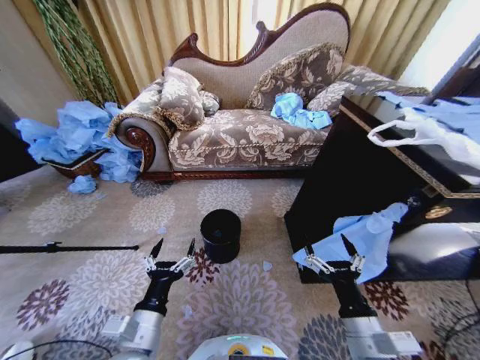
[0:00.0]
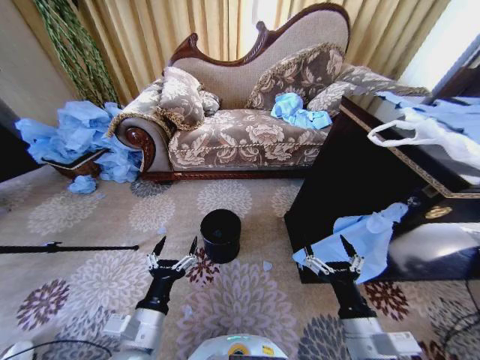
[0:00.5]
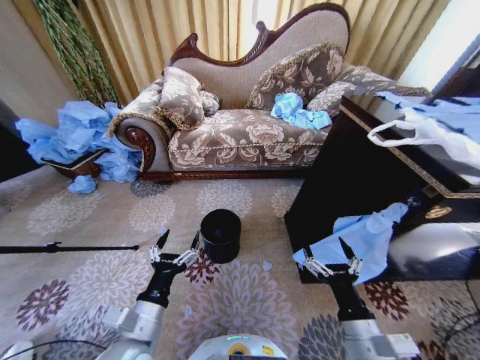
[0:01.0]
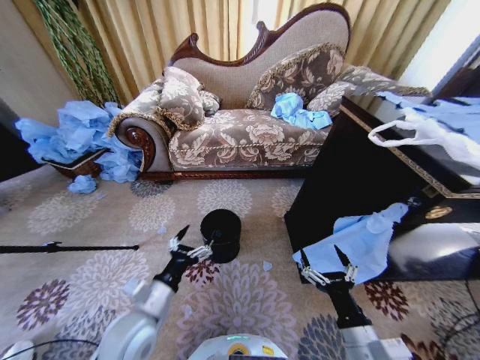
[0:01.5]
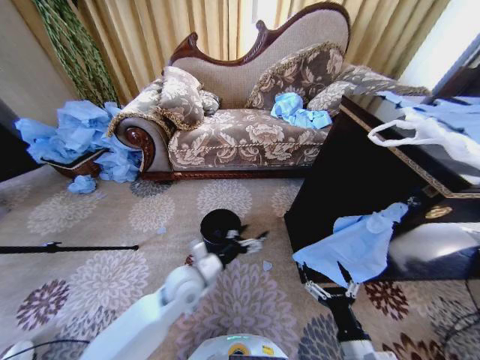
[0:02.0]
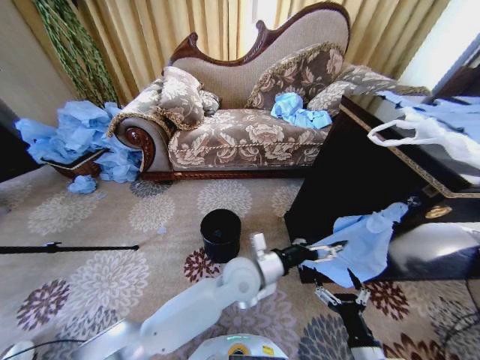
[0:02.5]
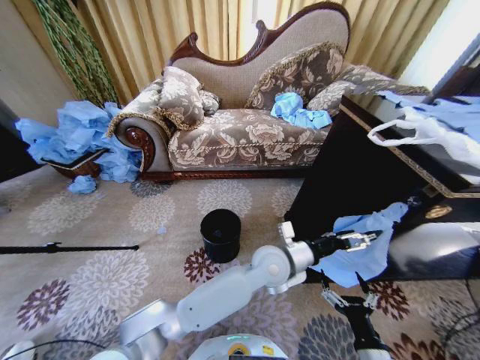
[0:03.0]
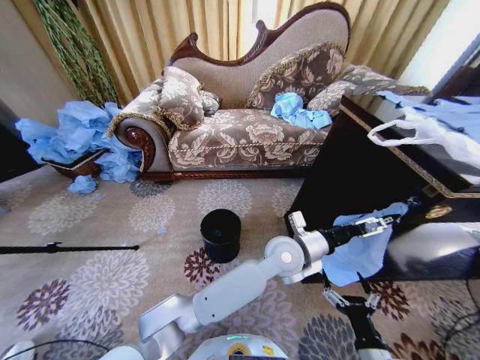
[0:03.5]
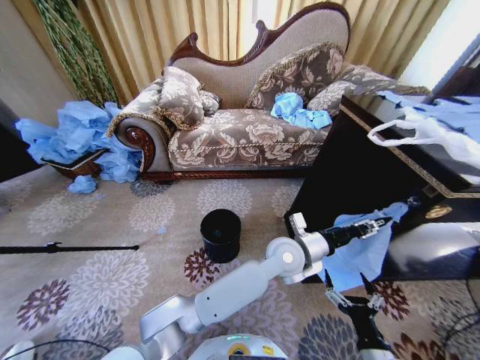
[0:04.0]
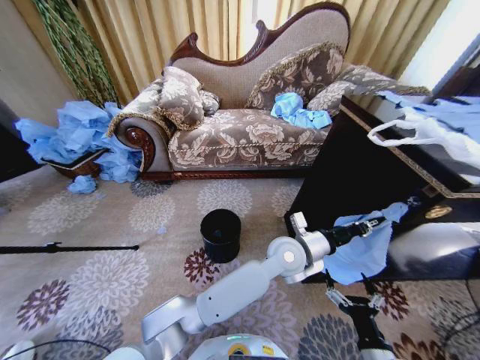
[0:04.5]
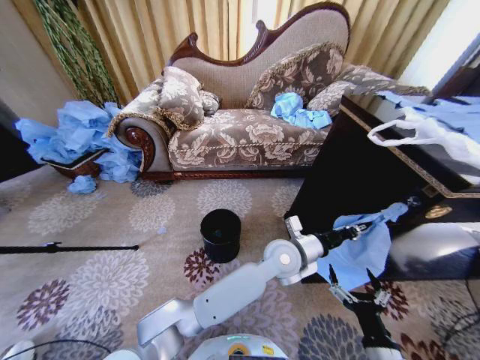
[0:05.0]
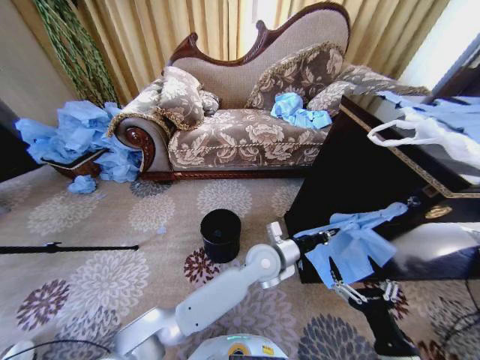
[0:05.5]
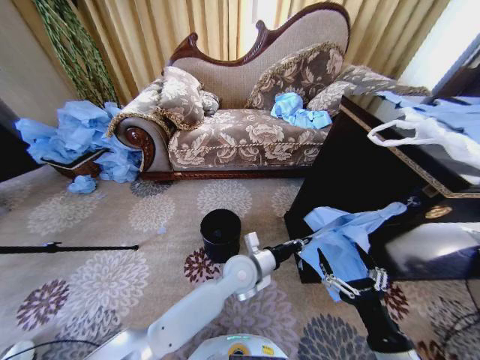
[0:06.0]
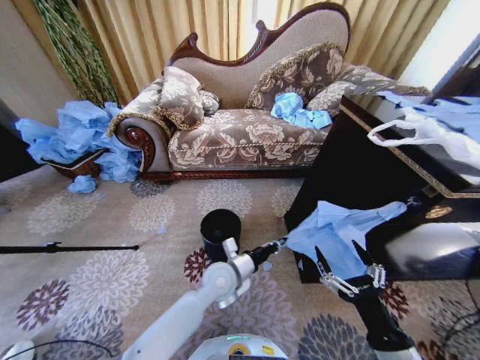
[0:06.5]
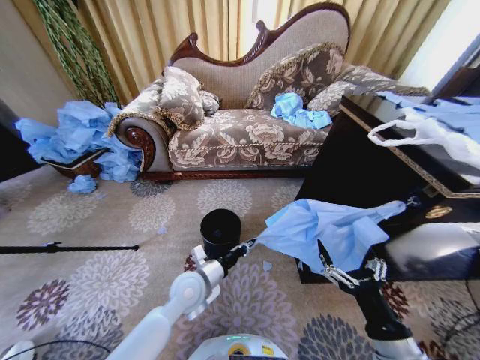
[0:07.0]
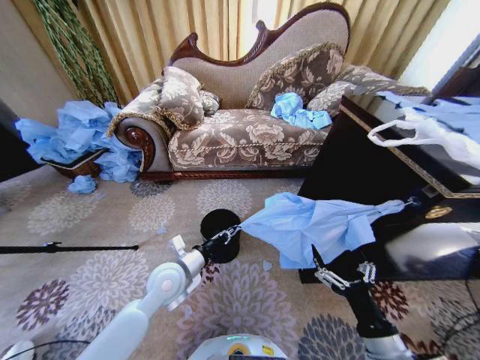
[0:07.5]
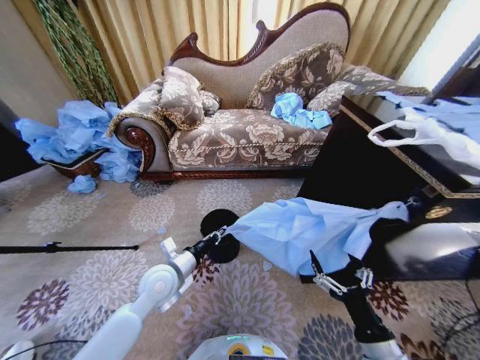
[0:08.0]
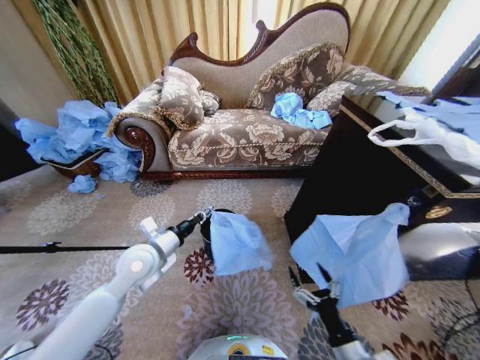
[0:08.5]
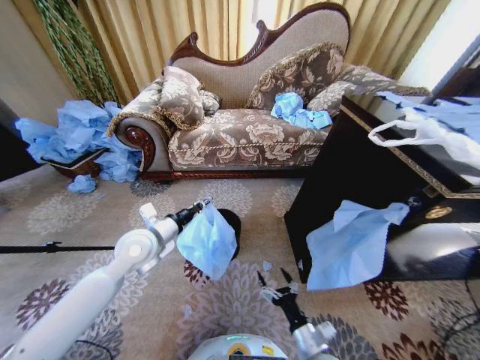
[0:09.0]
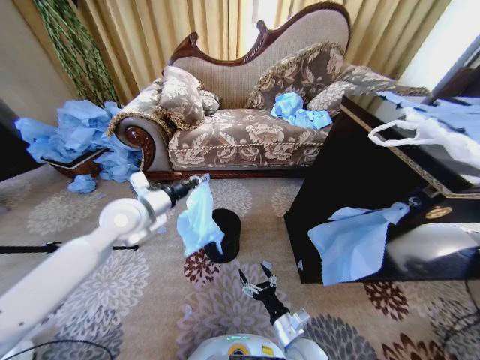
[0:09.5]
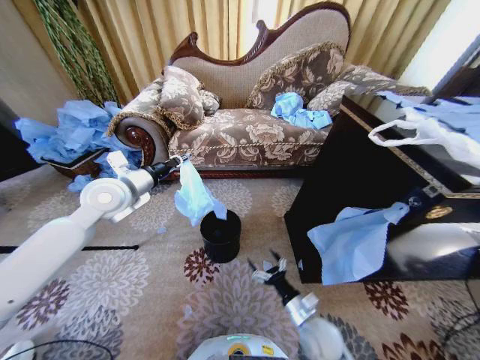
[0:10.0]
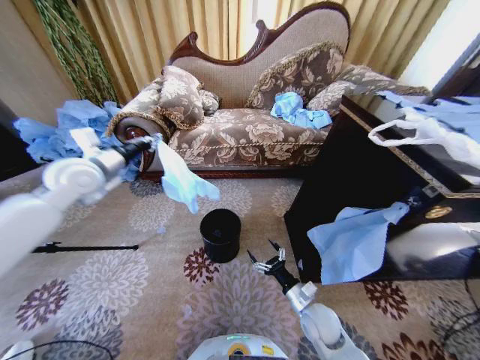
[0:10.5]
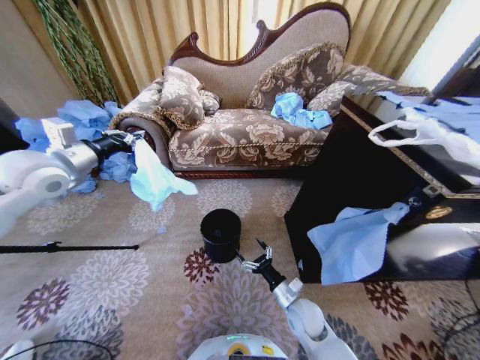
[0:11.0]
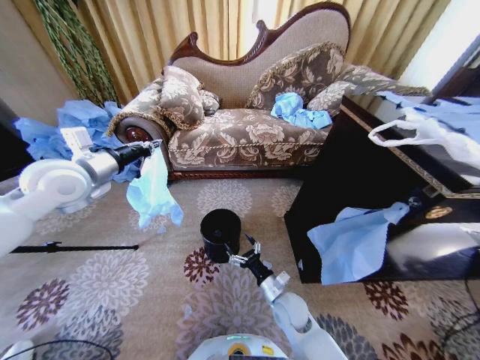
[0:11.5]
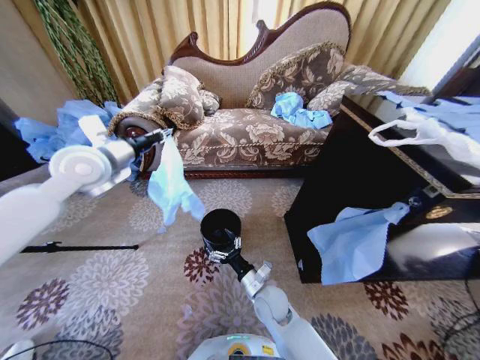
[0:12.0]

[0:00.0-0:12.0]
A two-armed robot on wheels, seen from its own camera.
Task of the whole recording: Place a garbage bag over the trash bin.
0:02.0 to 0:04.0: The left gripper goes some 25 cm to the right, and closes.
0:04.0 to 0:06.0: The right gripper heads upward, covering approximately 10 cm, while the left gripper moves to the left and downward, about 15 cm, and closes up.
0:06.0 to 0:08.0: The left gripper is displaced to the left by roughly 20 cm.
0:08.0 to 0:10.0: The right gripper moves downward, forward and to the left, approximately 20 cm; the left gripper is displaced upward, forward and to the left by approximately 25 cm.
0:10.0 to 0:12.0: The right gripper goes about 15 cm to the left and forward, while the left gripper moves upward, about 10 cm, and goes to the left and returns, some 10 cm each way.

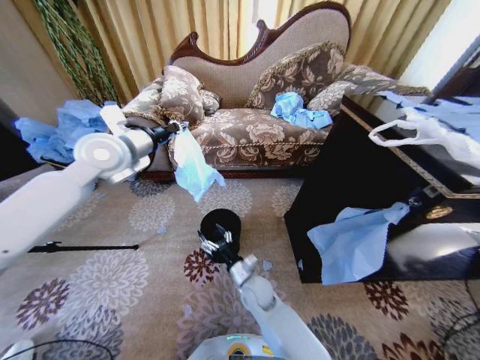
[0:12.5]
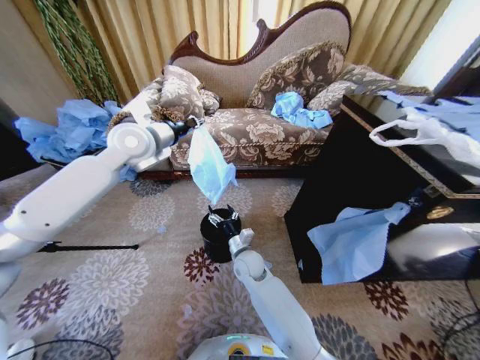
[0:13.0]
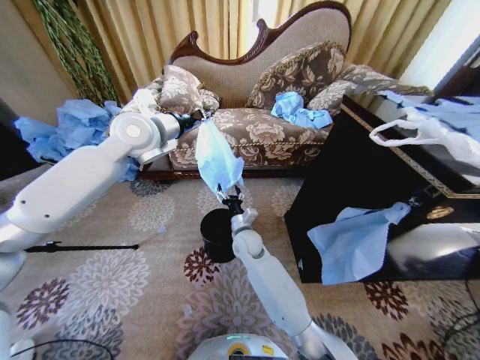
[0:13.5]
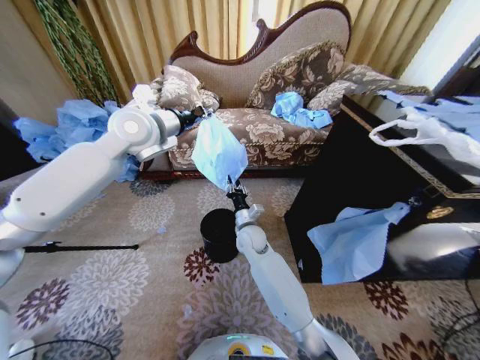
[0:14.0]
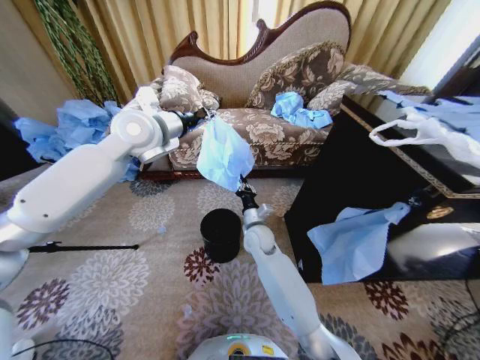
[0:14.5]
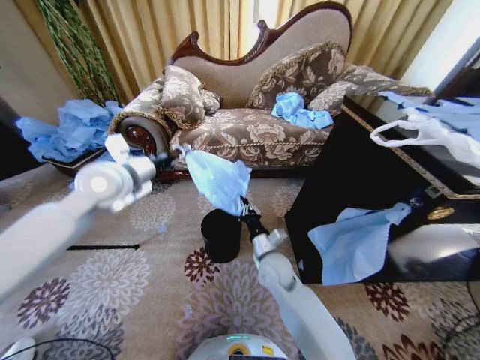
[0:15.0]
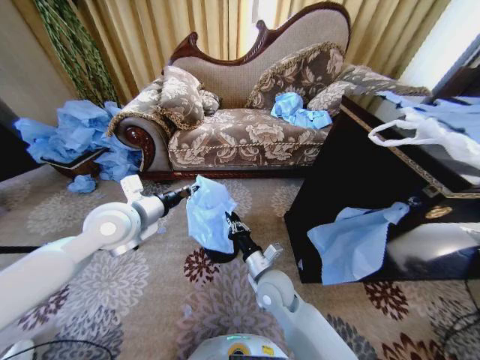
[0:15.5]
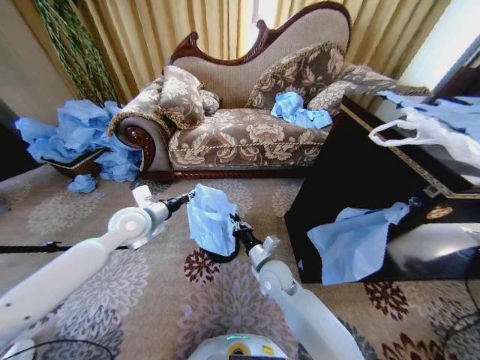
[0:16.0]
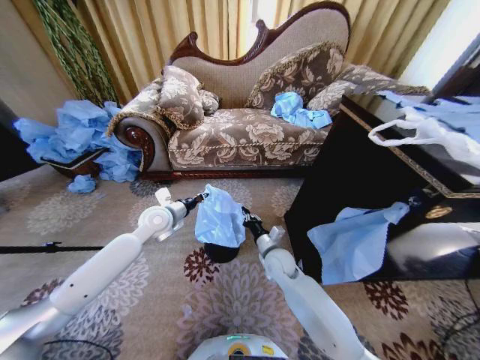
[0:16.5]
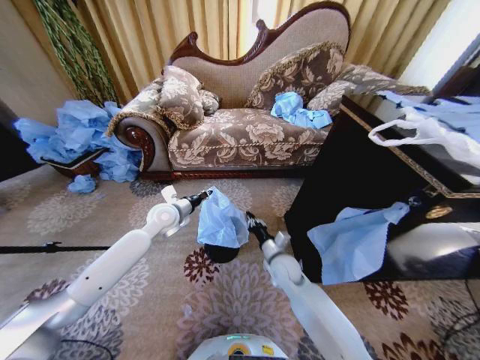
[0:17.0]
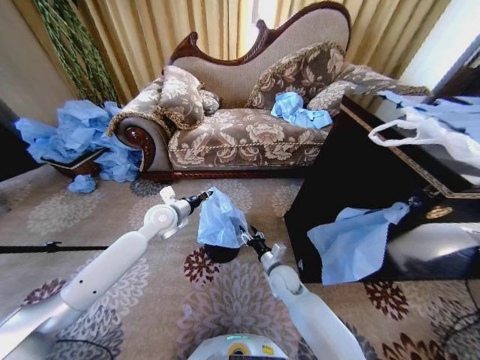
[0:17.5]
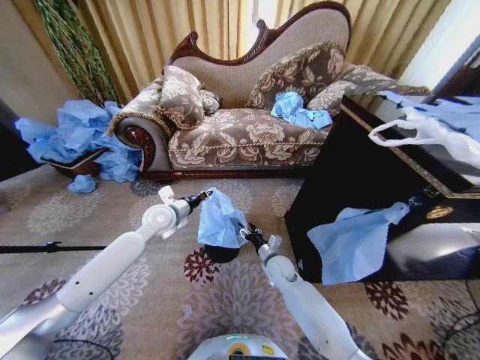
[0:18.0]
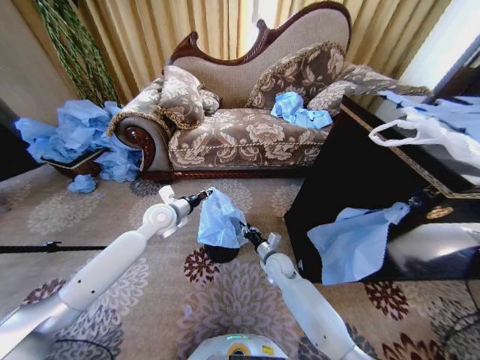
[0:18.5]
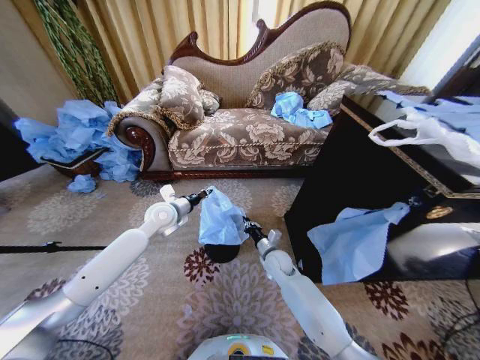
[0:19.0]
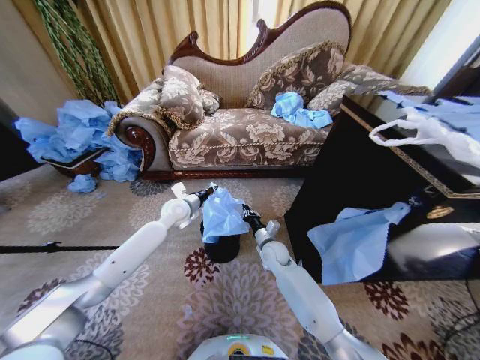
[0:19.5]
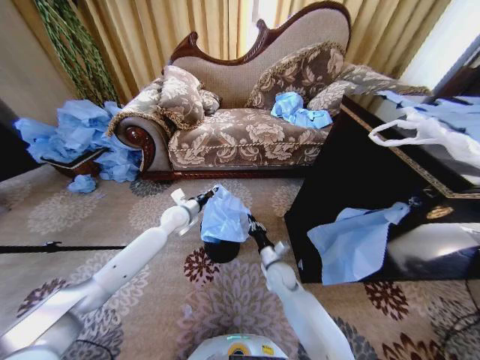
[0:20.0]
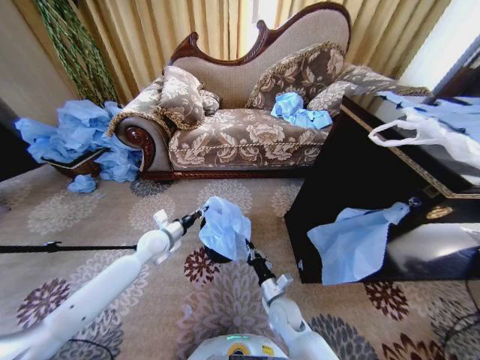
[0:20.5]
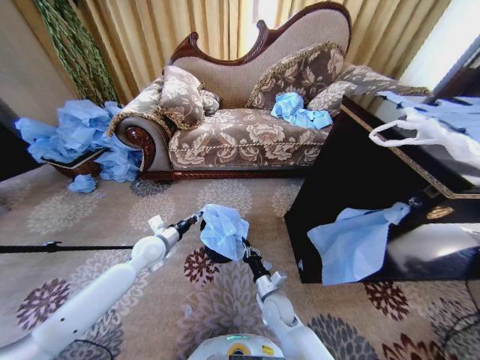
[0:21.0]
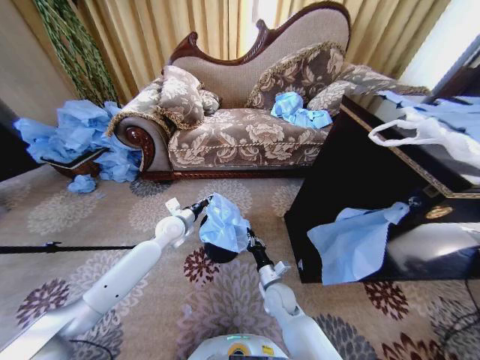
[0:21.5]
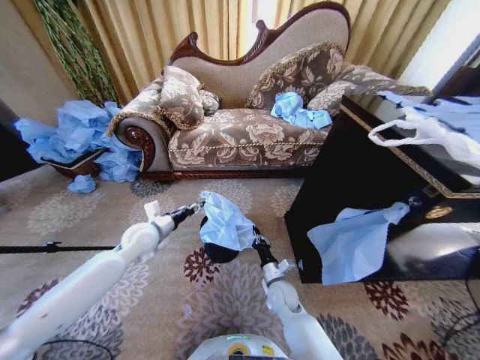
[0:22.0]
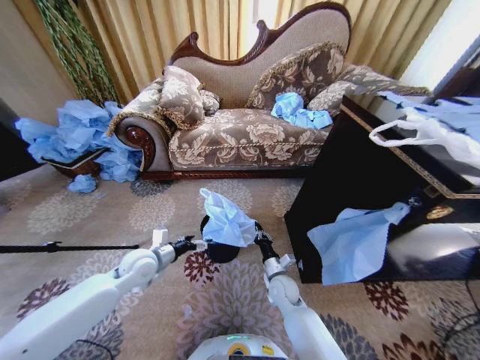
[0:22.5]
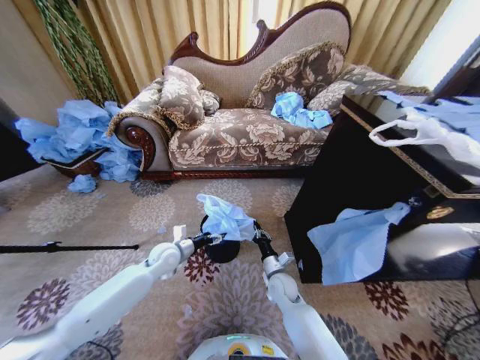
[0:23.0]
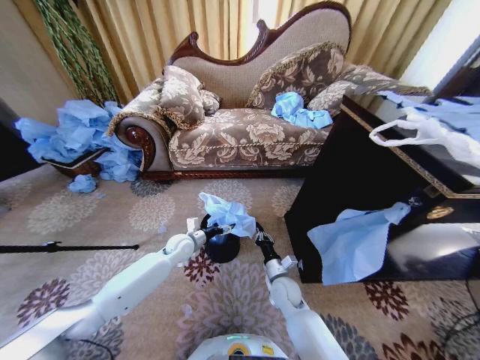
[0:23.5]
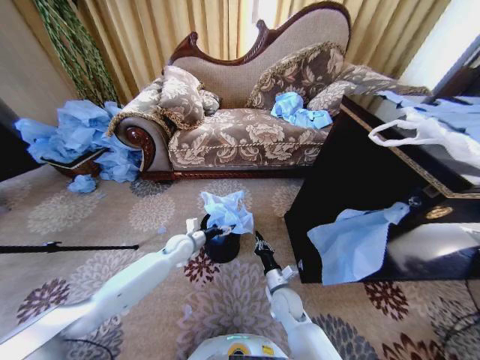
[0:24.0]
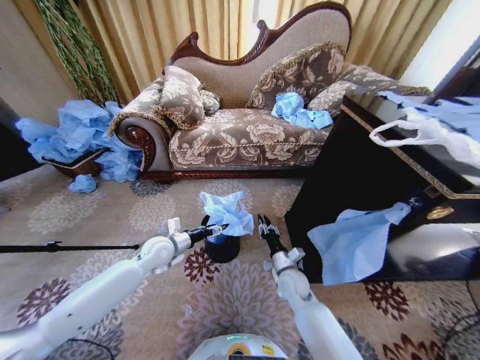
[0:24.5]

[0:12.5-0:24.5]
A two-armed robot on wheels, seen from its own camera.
Task of the whole recording: Place a garbage bag over the trash bin.
0:12.5 to 0:14.5: The right gripper shifts about 15 cm forward and upward, and closes up, while the left gripper heads to the right, covering about 5 cm.
0:14.5 to 0:16.5: The left gripper moves downward, some 25 cm; the right gripper is displaced to the right and downward by some 10 cm, and moves approximately 15 cm backward and comes back.
0:16.5 to 0:18.5: The right gripper is displaced downward by roughly 5 cm, and opens, then closes once more.
0:18.5 to 0:20.5: The left gripper is displaced downward by some 10 cm. The right gripper shifts about 15 cm backward.
0:20.5 to 0:22.5: The right gripper travels forward by about 5 cm, while the left gripper is displaced backward by approximately 5 cm, and opens its fingers.
0:22.5 to 0:24.5: The left gripper travels forward by some 5 cm.

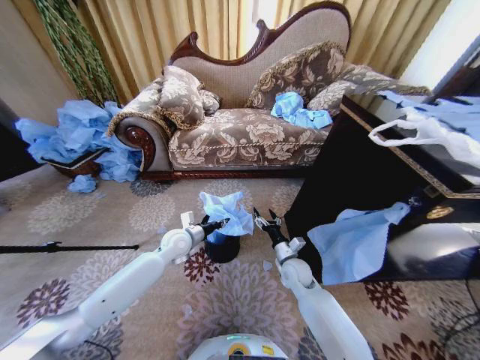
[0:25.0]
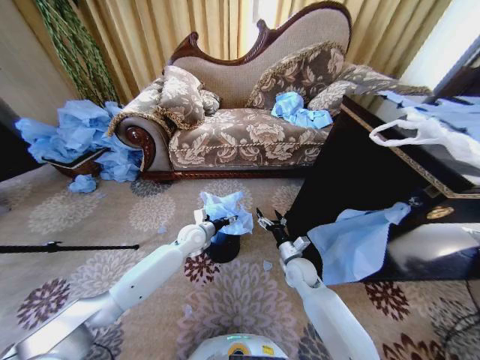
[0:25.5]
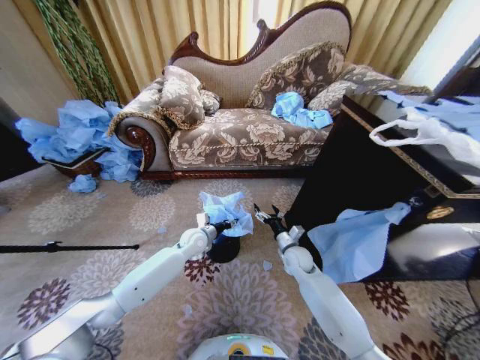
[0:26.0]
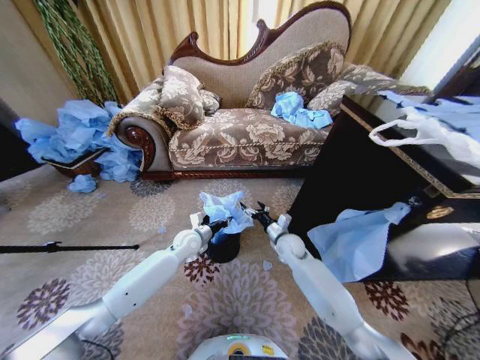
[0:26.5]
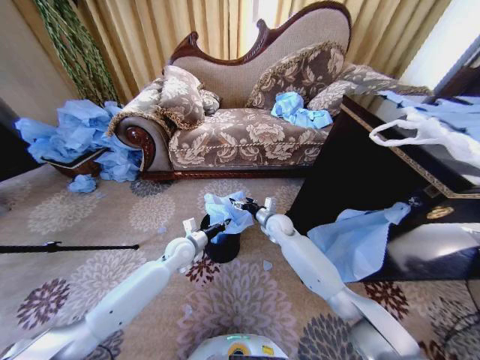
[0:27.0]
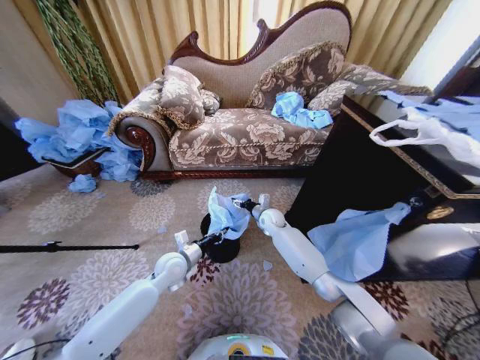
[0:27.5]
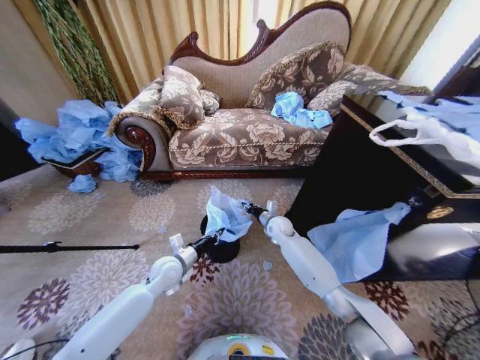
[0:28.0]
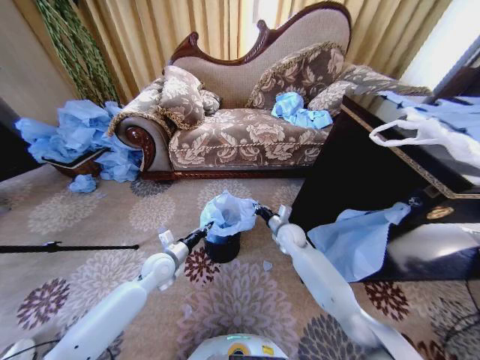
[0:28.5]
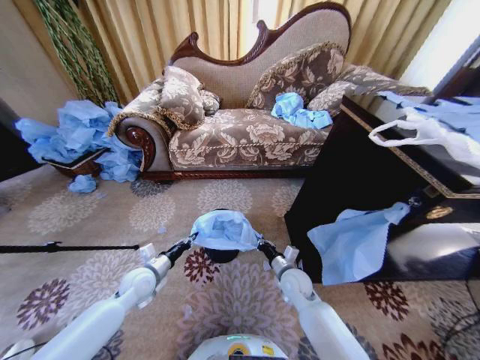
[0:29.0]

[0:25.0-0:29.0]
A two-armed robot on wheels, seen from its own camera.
Task of the whole recording: Place a garbage bag over the trash bin.
0:25.0 to 0:27.0: The right gripper is displaced forward and upward by approximately 15 cm.
0:27.0 to 0:29.0: The right gripper heads backward and downward, covering roughly 20 cm, and closes; the left gripper shifts approximately 15 cm to the left and backward.
